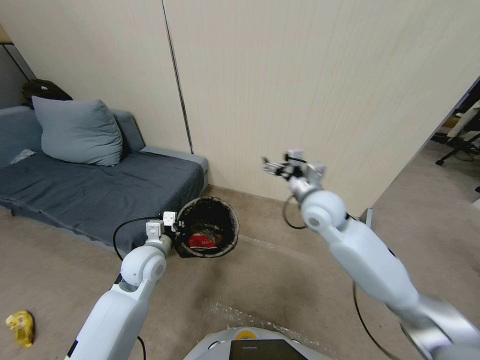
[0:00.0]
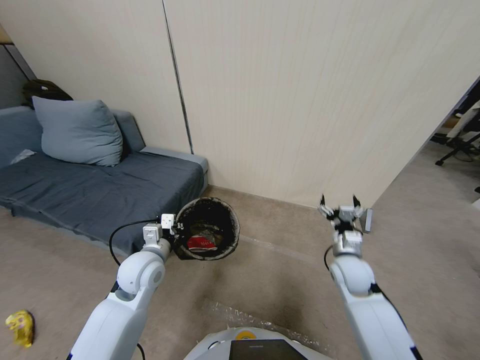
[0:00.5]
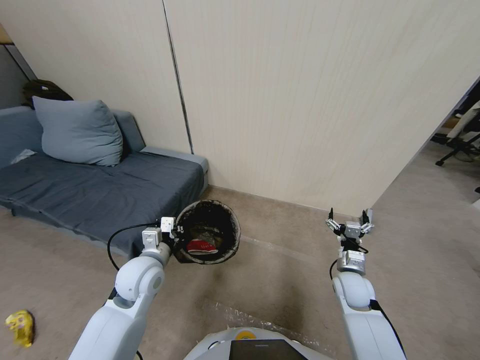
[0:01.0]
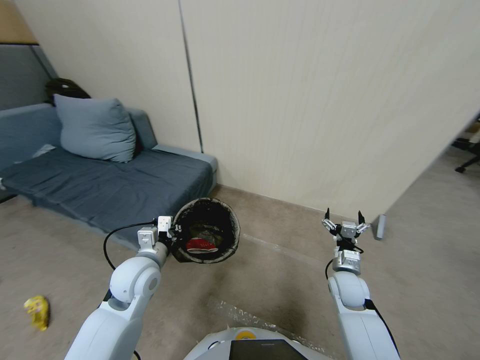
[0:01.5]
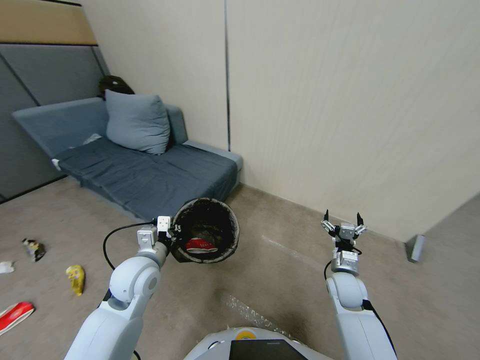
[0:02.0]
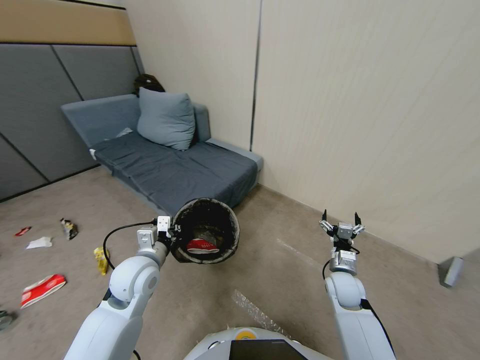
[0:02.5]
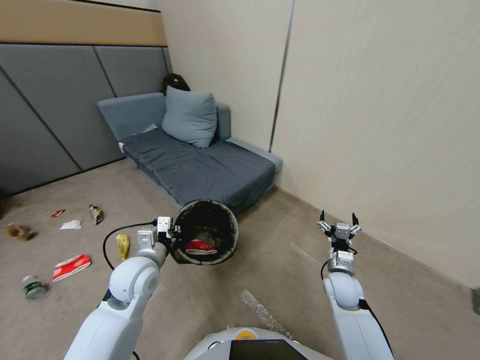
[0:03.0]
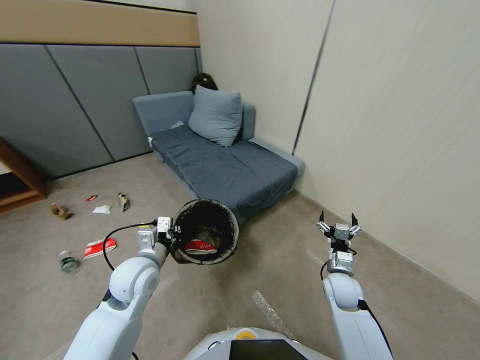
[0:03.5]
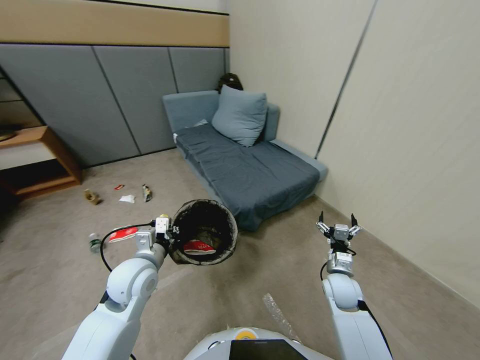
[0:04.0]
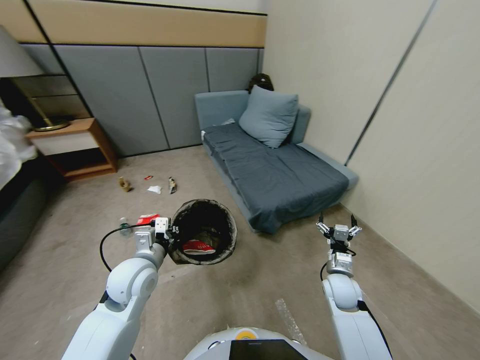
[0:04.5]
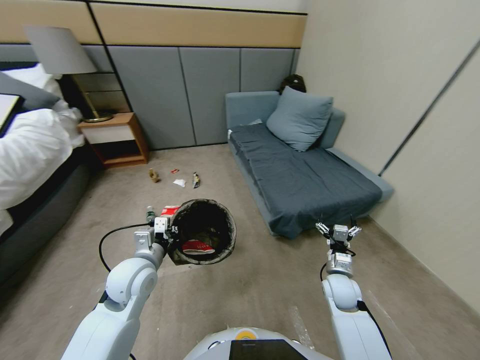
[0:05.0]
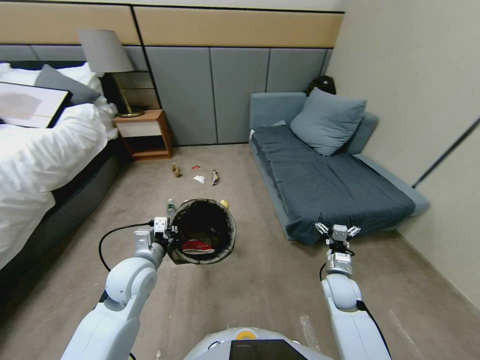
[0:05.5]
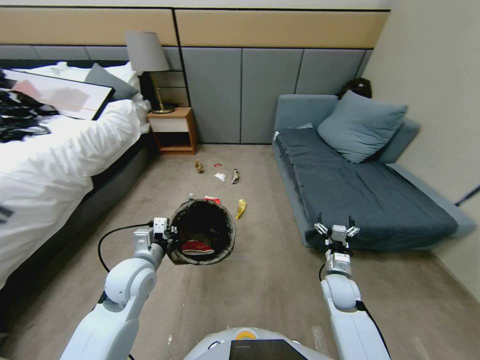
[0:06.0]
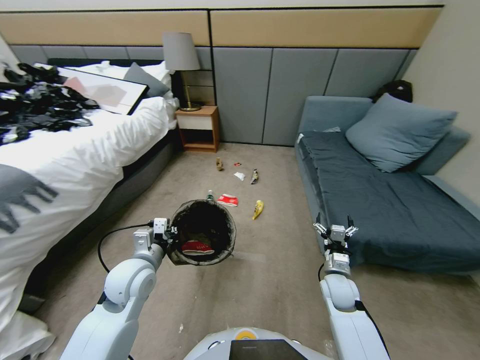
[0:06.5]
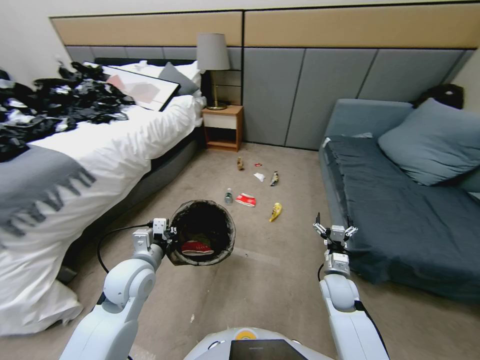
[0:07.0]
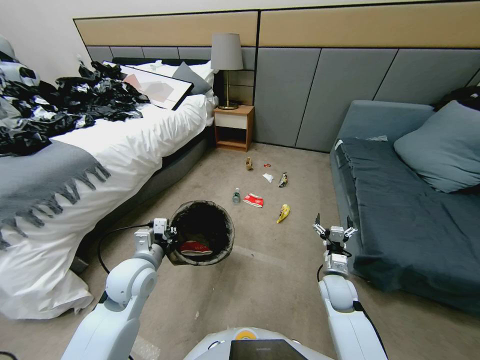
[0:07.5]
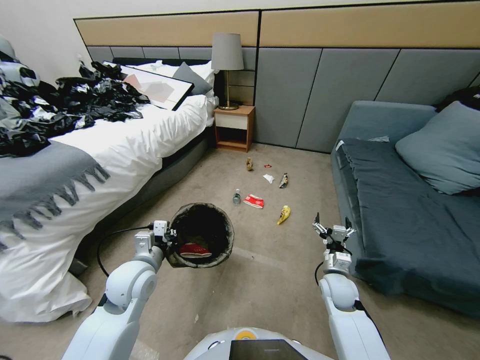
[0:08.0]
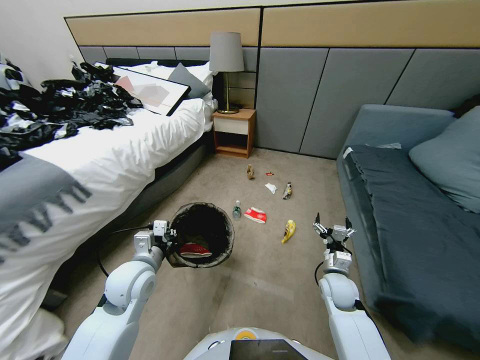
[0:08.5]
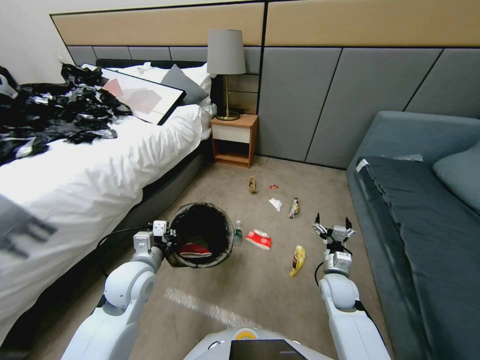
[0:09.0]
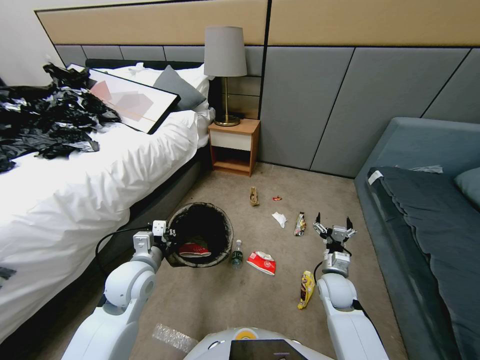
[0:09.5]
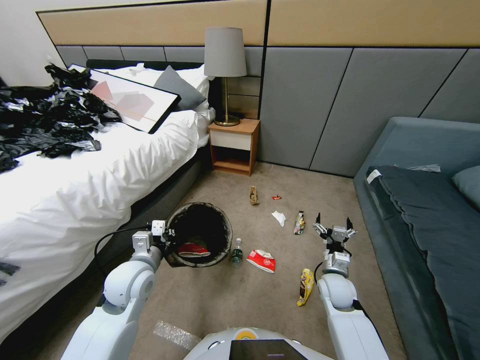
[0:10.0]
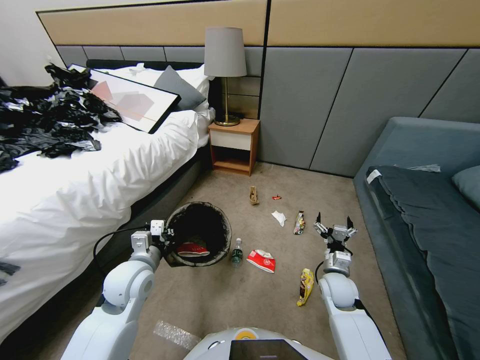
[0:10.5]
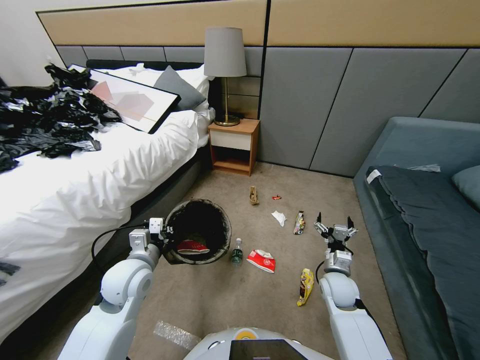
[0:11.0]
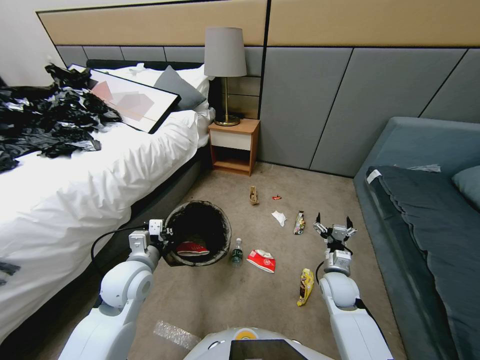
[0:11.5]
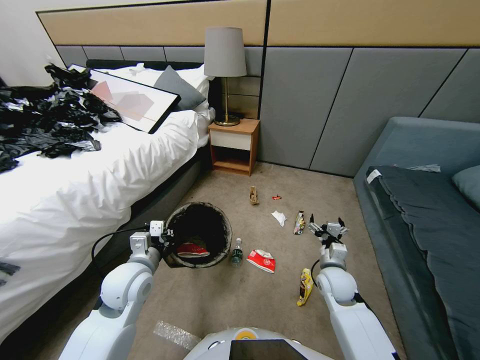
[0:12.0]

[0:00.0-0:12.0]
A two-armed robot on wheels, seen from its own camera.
Task of the whole recording: Pick up the trash bin, then pick up the garbage from the floor and place it into the trash bin.
0:00.0 to 0:02.0: The right gripper goes roughly 20 cm downward and backward.
0:10.0 to 0:12.0: The right gripper goes roughly 5 cm upward.

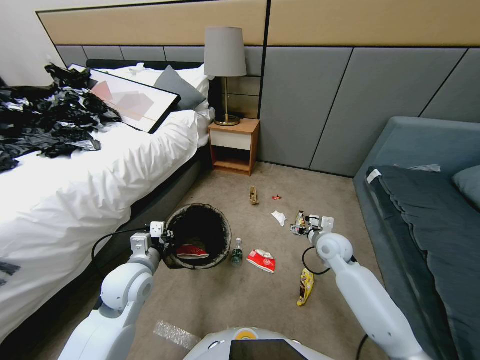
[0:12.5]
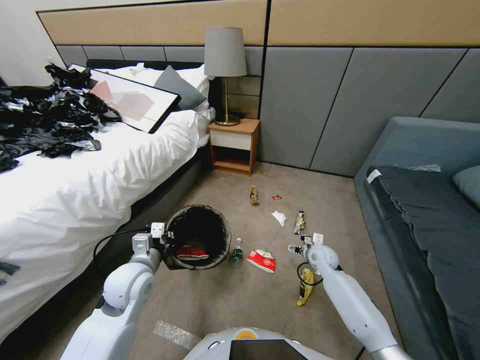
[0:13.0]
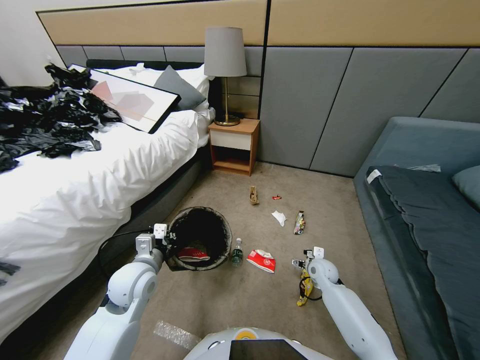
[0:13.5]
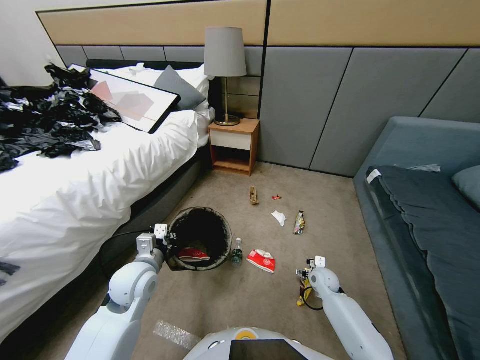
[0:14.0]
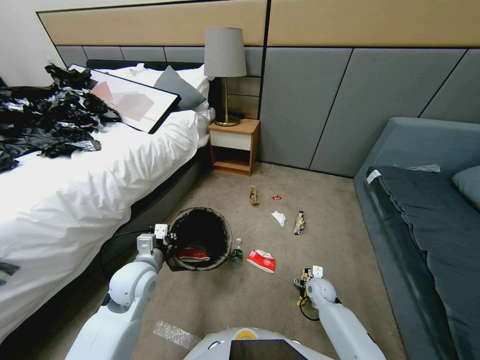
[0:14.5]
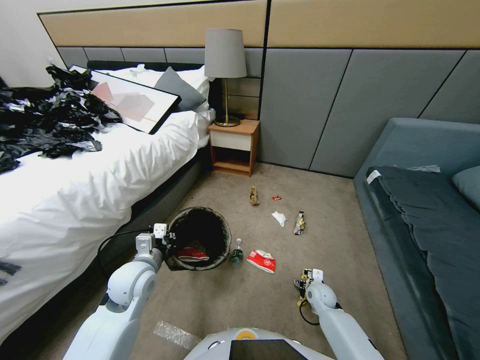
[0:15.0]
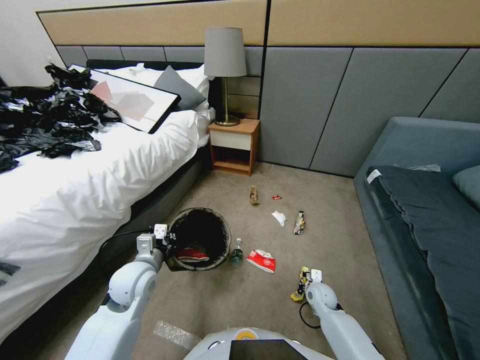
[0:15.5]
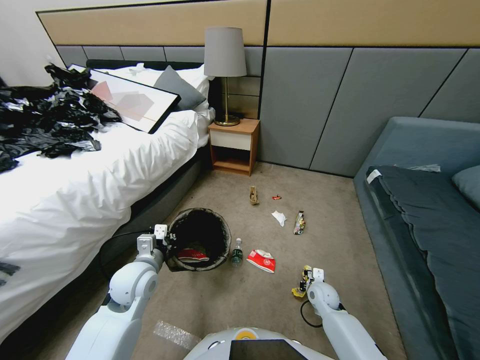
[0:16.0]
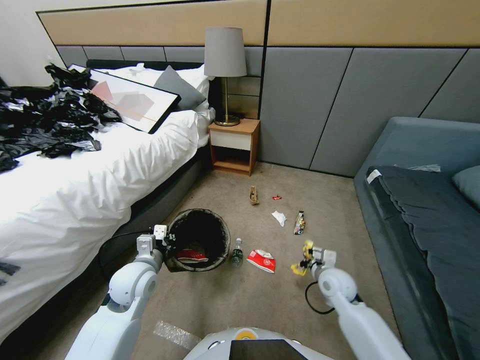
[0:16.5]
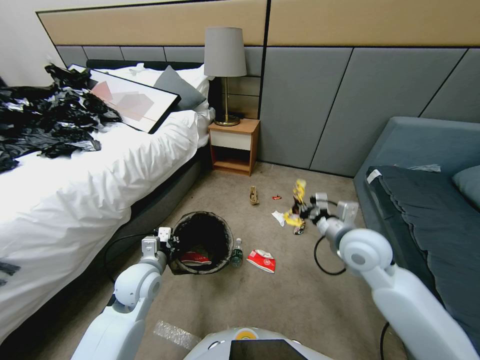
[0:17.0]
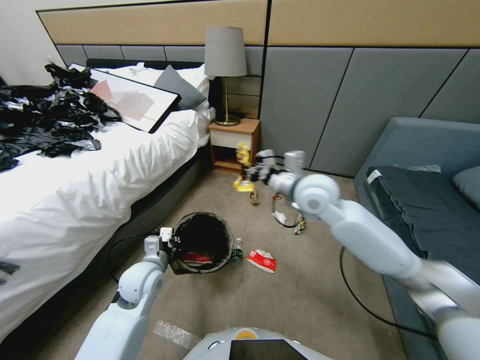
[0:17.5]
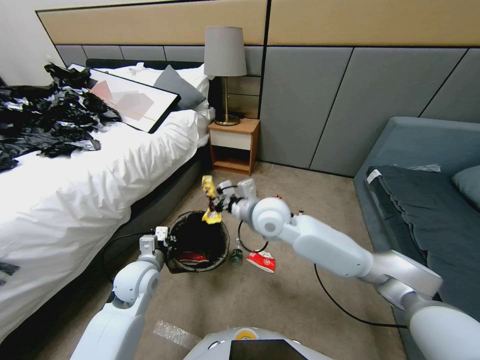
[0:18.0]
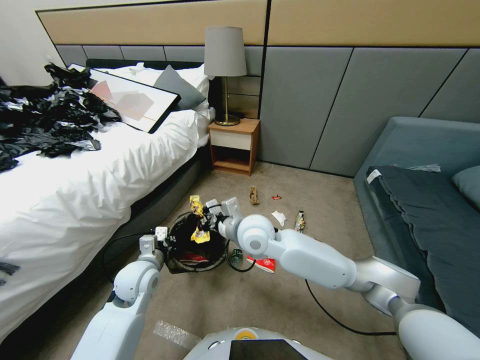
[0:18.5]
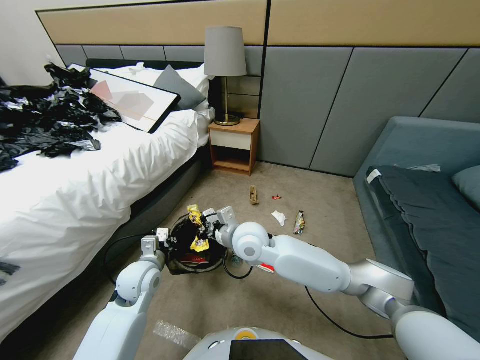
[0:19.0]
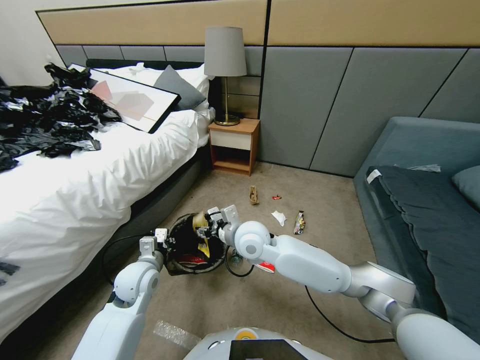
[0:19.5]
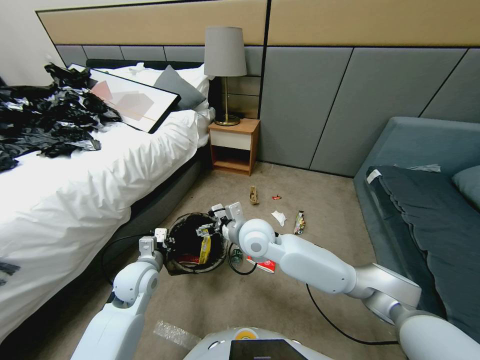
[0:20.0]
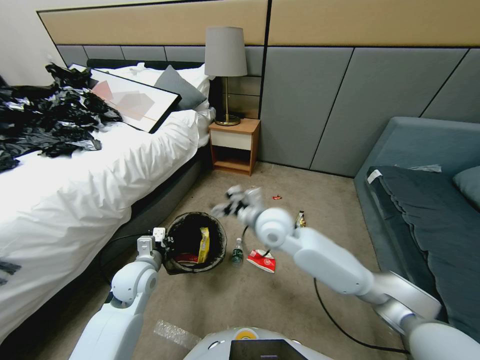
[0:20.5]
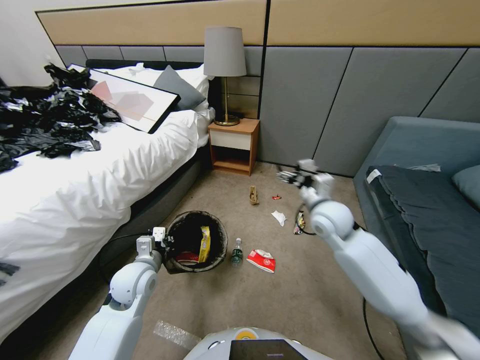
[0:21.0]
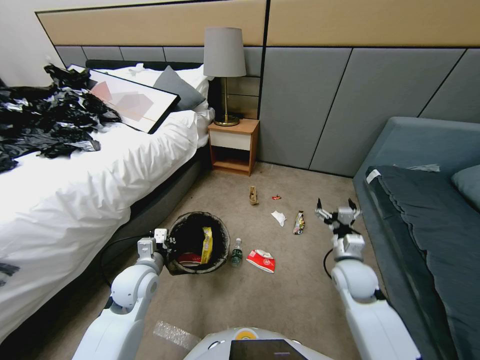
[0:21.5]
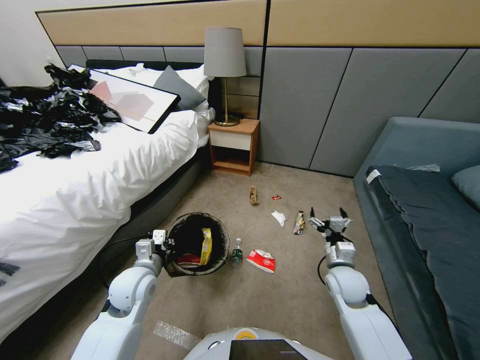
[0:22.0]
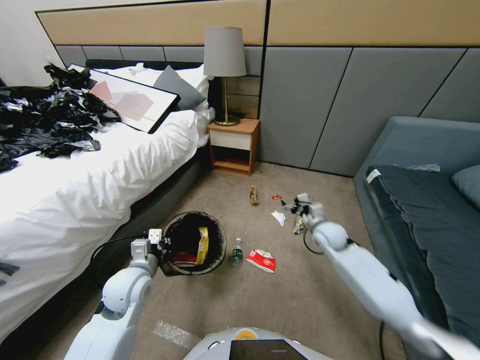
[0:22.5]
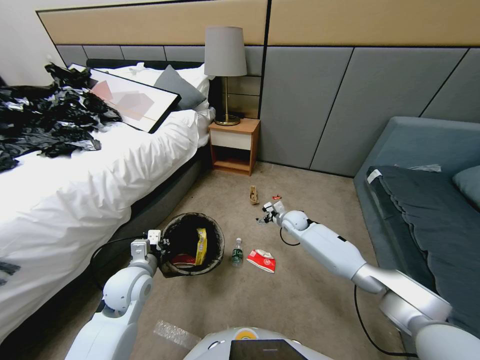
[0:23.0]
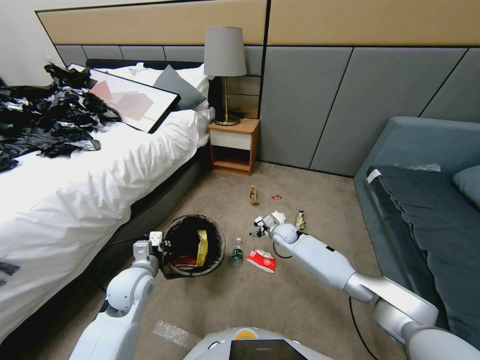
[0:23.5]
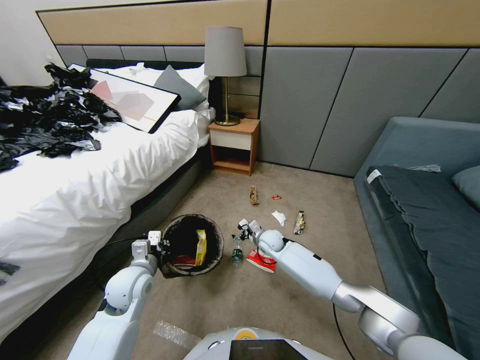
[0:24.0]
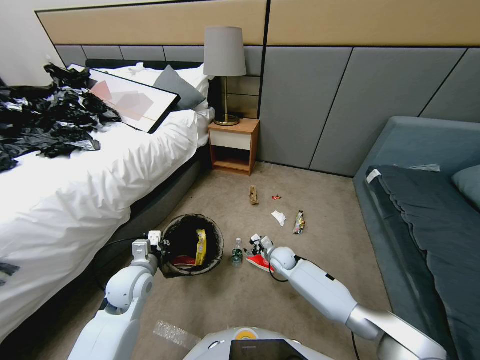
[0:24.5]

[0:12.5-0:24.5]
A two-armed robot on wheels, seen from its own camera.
Task of the whole recording: Pick up the trash bin, then pick up the garbage from the floor and place it into the trash bin.
0:12.5 to 0:14.5: The right gripper moves downward and backward, approximately 20 cm.
0:14.5 to 0:16.5: The right gripper is displaced upward by roughly 25 cm, and closes its fingers.
0:16.5 to 0:18.5: The right gripper heads to the left, covering approximately 25 cm.
0:18.5 to 0:20.5: The right gripper heads to the right, covering some 10 cm, and opens.
0:20.5 to 0:22.5: The right gripper moves to the right, downward and forward, approximately 20 cm.
0:22.5 to 0:24.5: The right gripper goes about 20 cm downward and to the left.

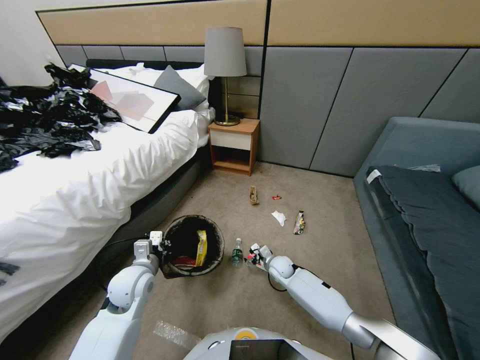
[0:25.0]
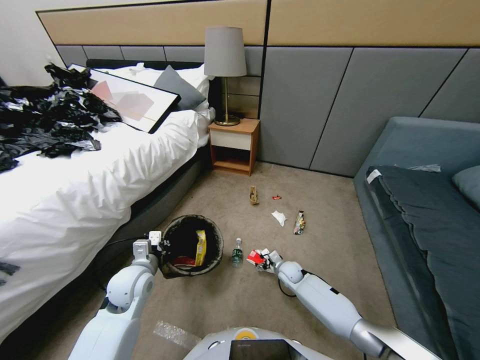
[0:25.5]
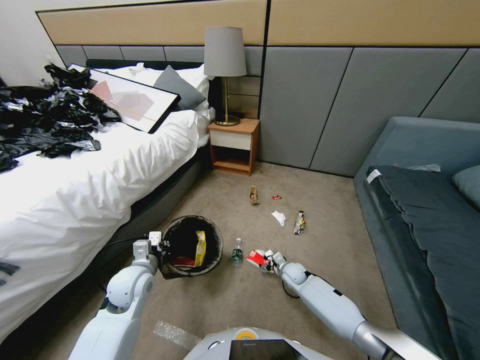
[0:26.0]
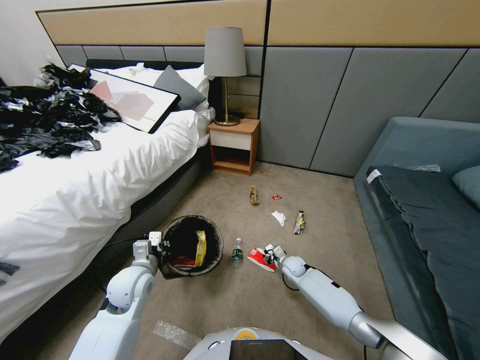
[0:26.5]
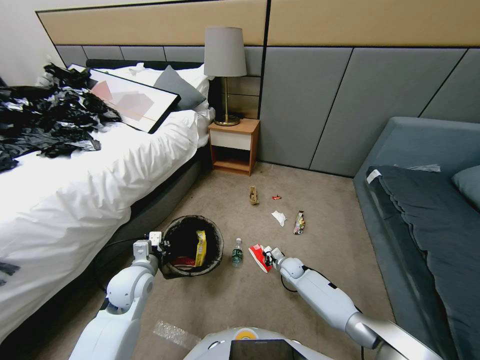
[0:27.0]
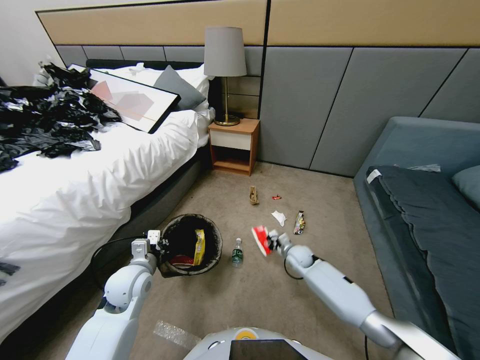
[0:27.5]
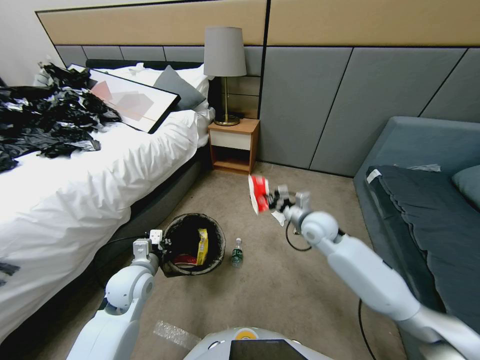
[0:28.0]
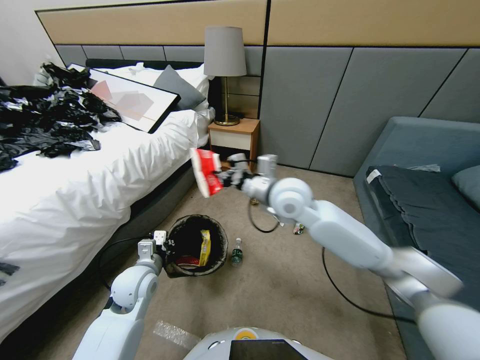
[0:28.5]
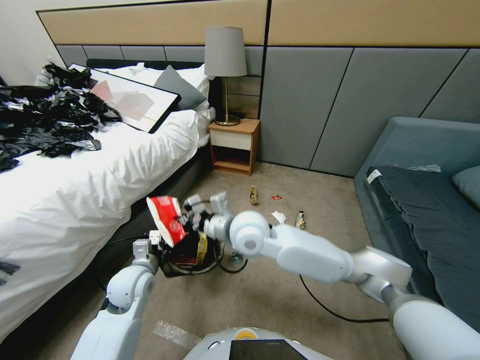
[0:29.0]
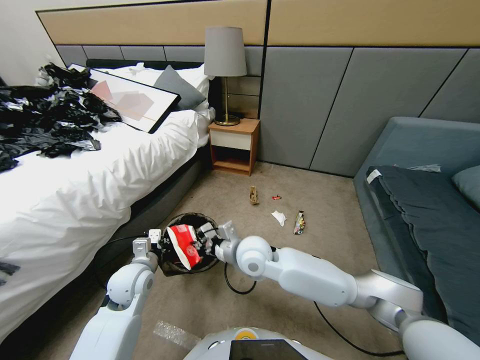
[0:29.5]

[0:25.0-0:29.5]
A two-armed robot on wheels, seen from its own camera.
Task of the whole recording: Pick up the trash bin, then pick up the garbage from the floor and place it into the trash bin.
0:25.0 to 0:27.0: The right gripper moves some 5 cm, and closes up.
0:27.0 to 0:29.5: The right gripper goes approximately 35 cm upward and to the left.
